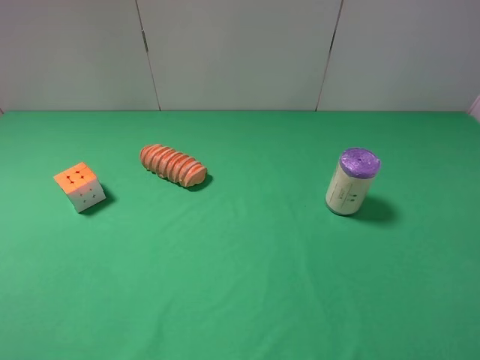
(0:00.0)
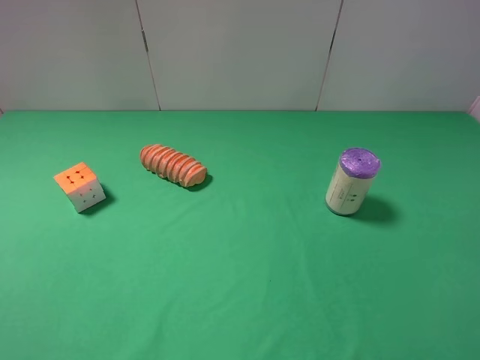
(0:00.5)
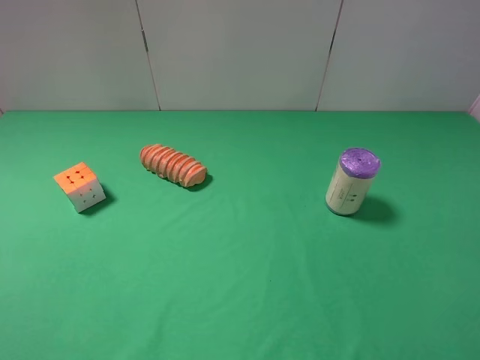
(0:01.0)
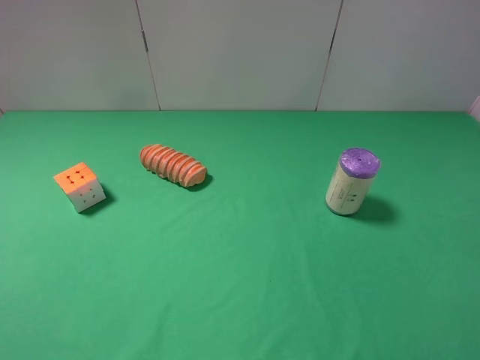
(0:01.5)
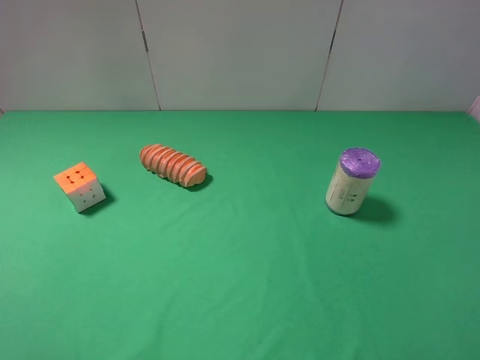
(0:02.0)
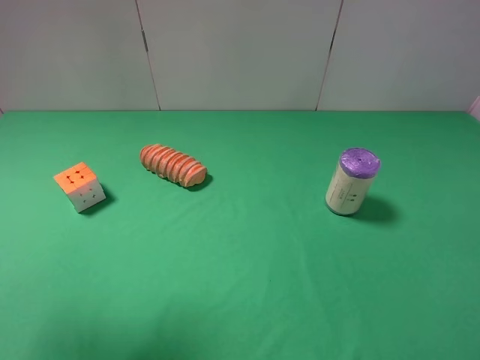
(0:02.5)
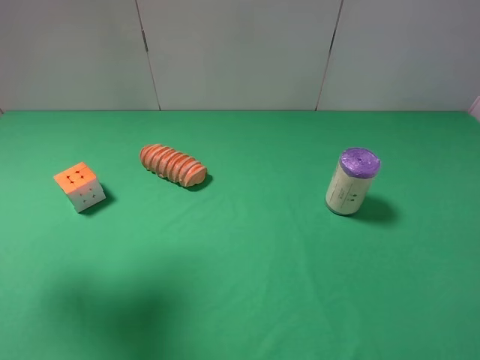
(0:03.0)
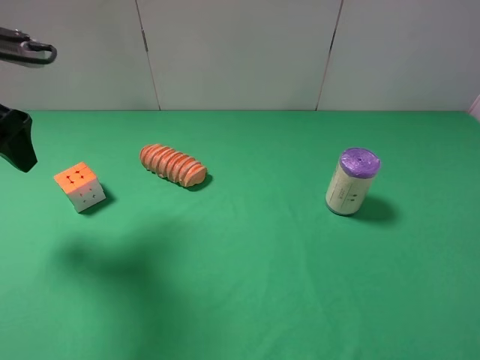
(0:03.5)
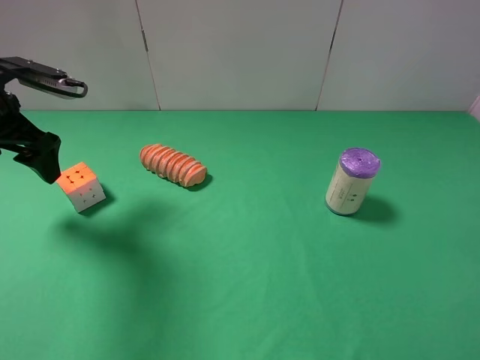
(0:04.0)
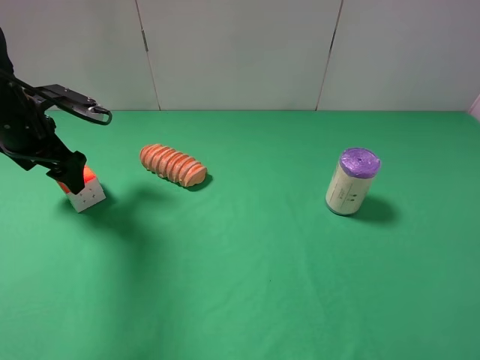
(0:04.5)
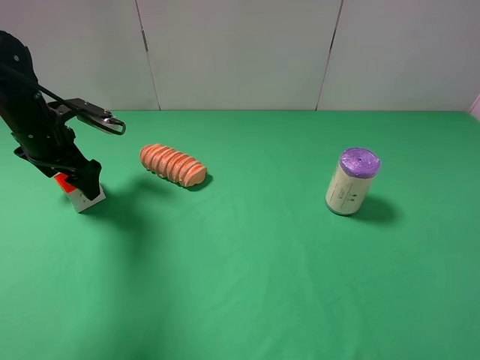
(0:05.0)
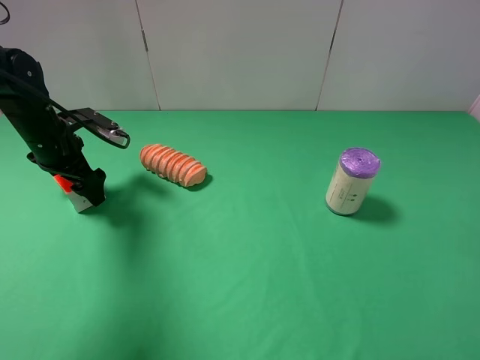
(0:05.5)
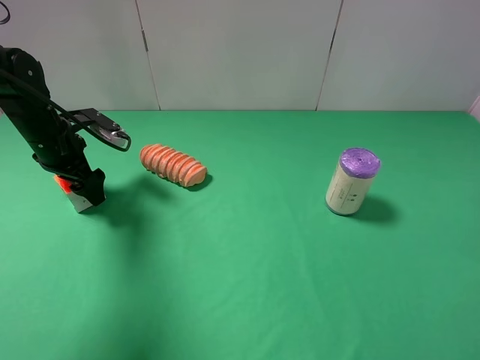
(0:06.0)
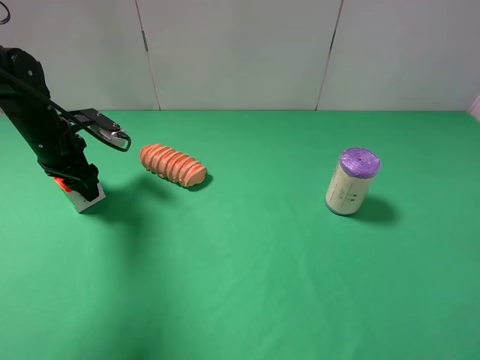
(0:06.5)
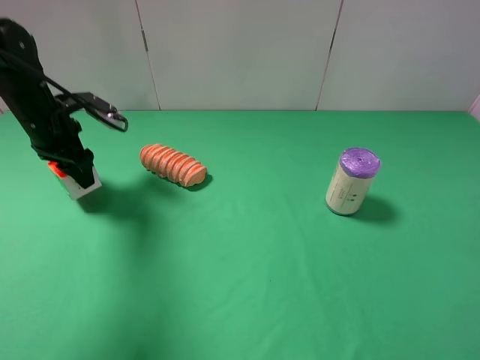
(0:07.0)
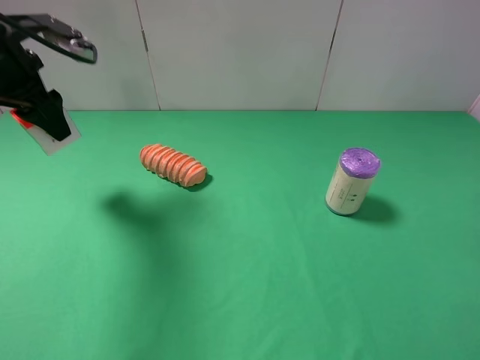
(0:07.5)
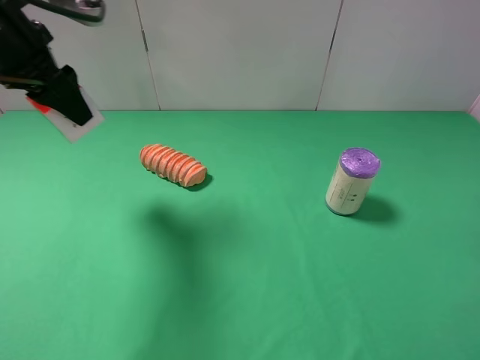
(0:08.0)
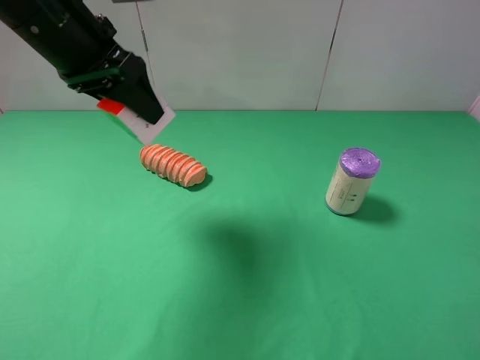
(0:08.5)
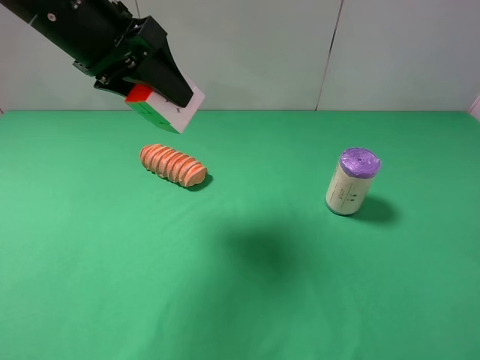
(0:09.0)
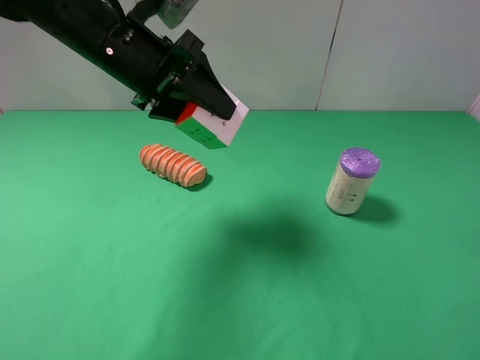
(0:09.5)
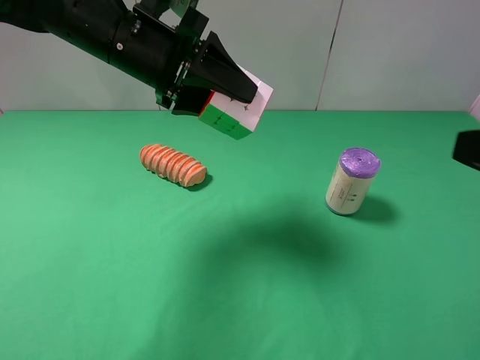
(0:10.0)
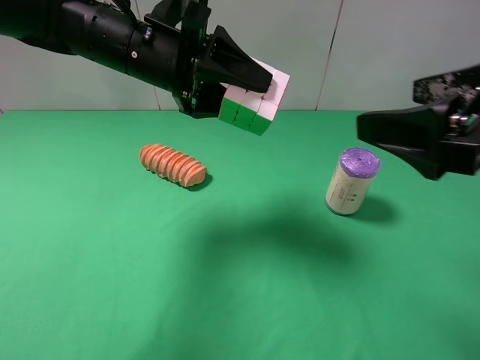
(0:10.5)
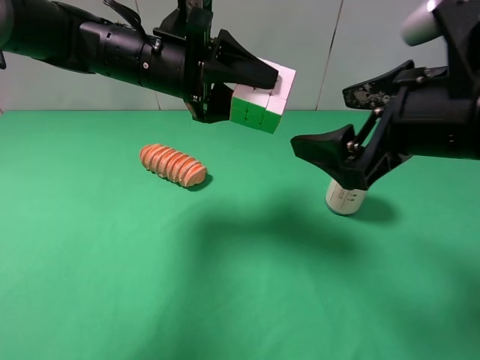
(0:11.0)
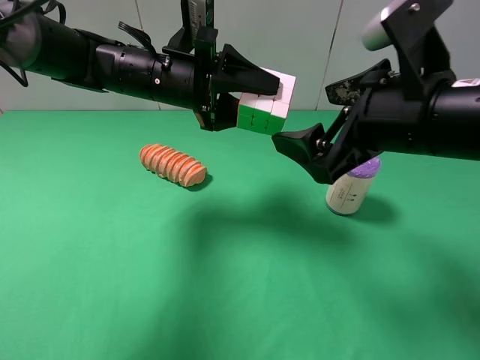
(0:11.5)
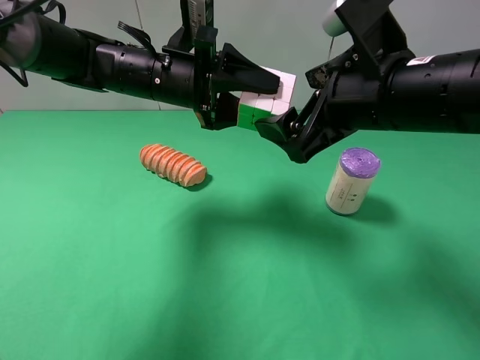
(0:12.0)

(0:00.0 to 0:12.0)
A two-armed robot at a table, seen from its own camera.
Task of the whole recording: use the left gripper to pick up the item and transfer it from the left gripper to the right gripper.
Step, 0:00.0 - 0:06.0: Use the left gripper to grab the Rubik's Cube on the left side of the table.
0:02.0 - 0:04.0: The left gripper heads forward and downward, covering roughly 25 cm.
0:04.0 - 0:06.0: The left gripper goes about 10 cm downward and forward.
0:06.0 - 0:08.0: The left gripper heads upward, covering some 20 cm, and closes up.
0:08.0 - 0:10.0: The right gripper travels forward by roughly 10 cm. Meanwhile the left gripper heads to the right, covering roughly 15 cm.
0:10.0 - 0:12.0: The left gripper goes approximately 5 cm downward. Meanwhile the right gripper goes about 20 cm forward and to the left.

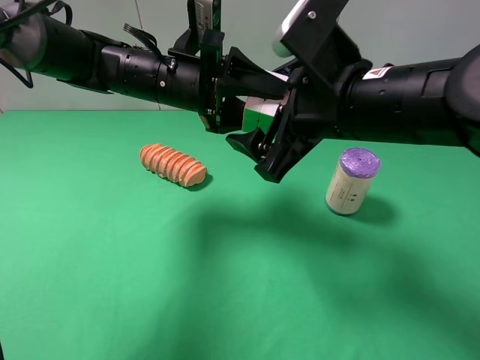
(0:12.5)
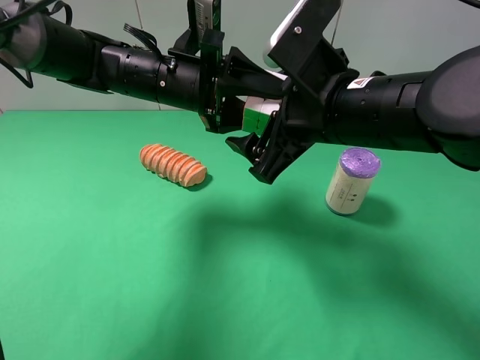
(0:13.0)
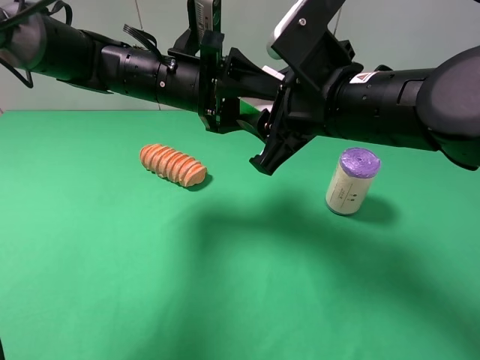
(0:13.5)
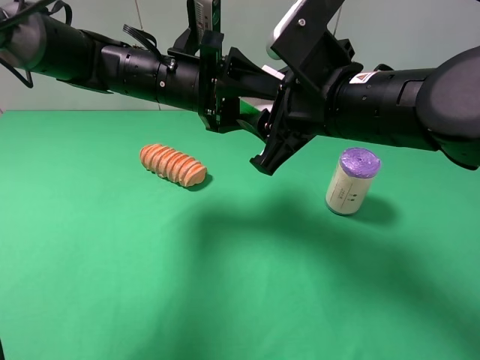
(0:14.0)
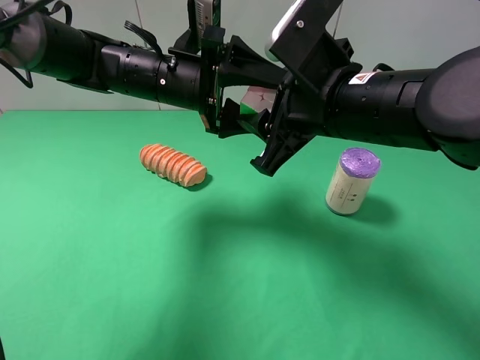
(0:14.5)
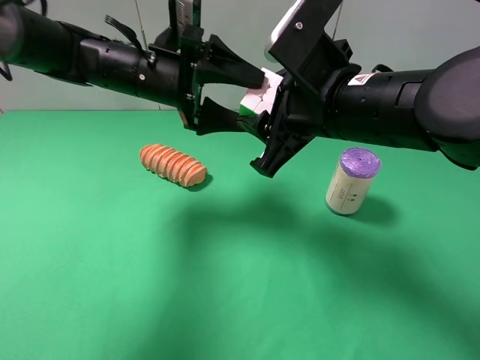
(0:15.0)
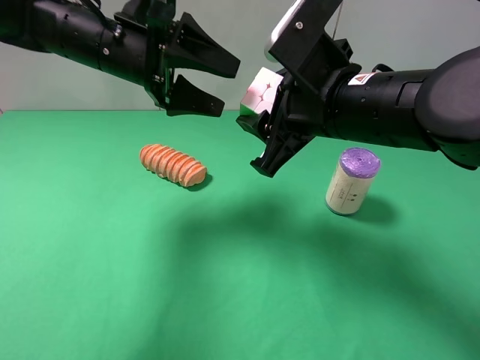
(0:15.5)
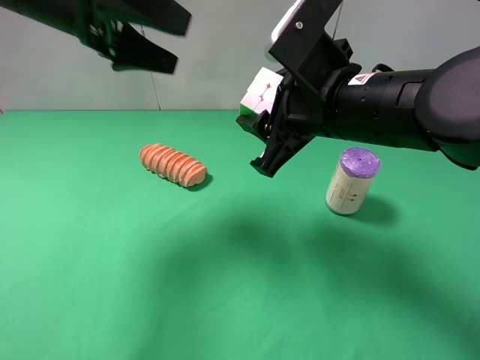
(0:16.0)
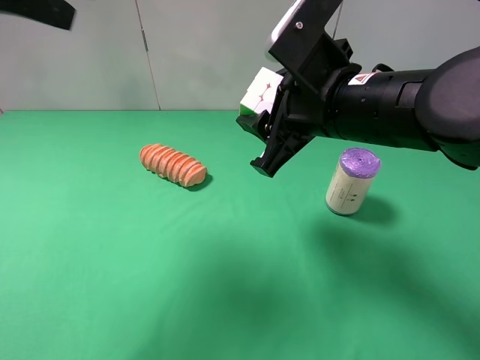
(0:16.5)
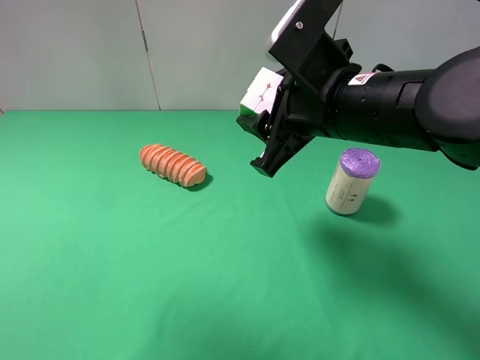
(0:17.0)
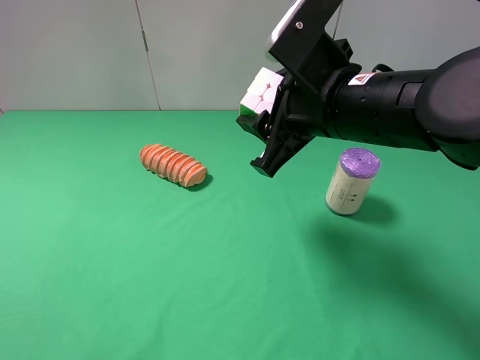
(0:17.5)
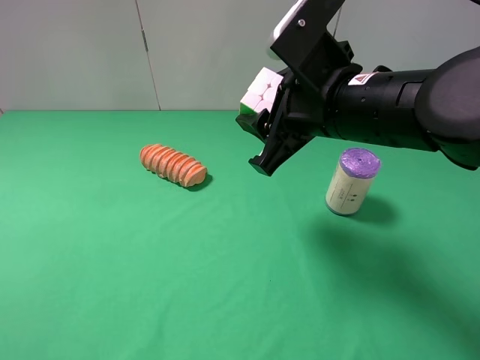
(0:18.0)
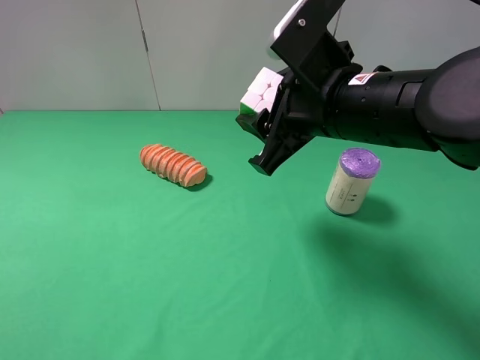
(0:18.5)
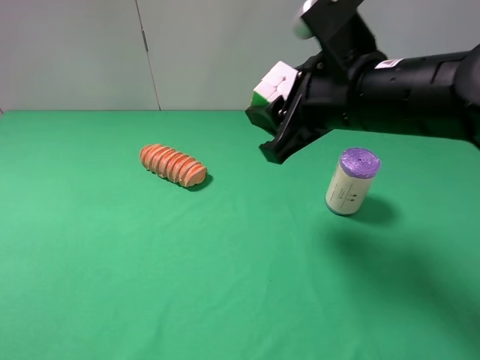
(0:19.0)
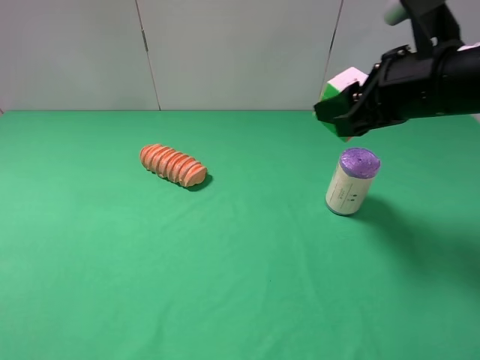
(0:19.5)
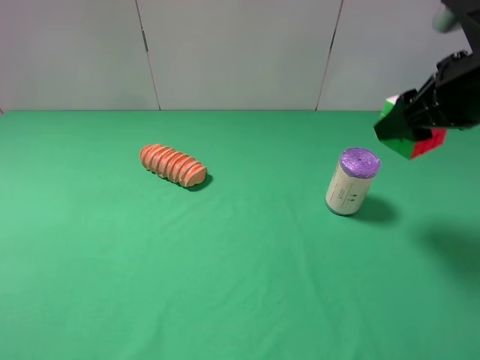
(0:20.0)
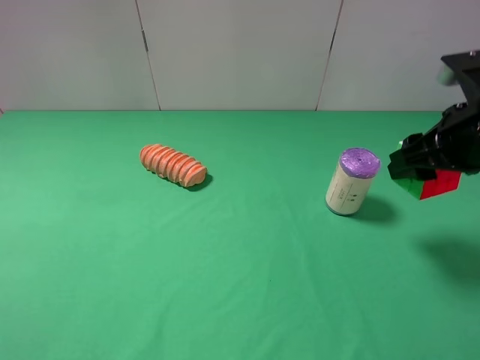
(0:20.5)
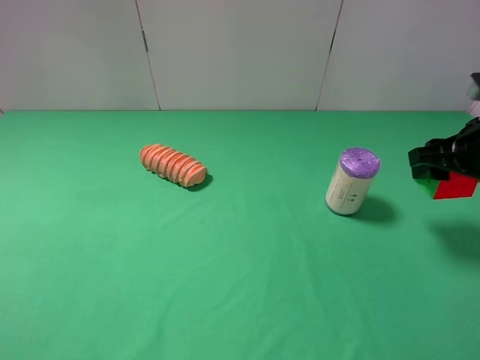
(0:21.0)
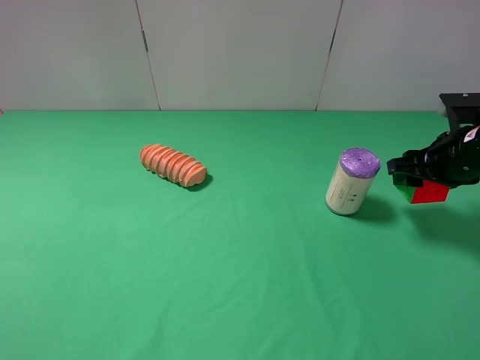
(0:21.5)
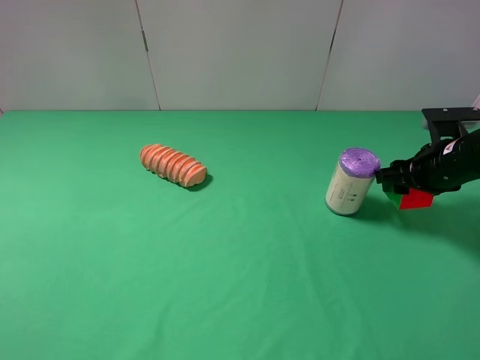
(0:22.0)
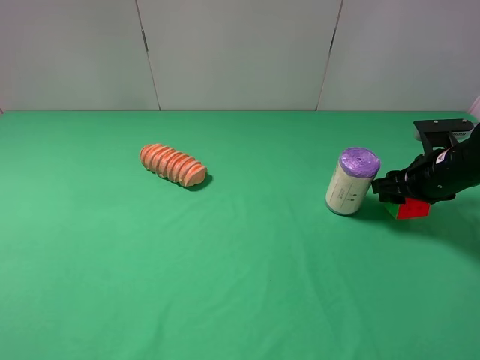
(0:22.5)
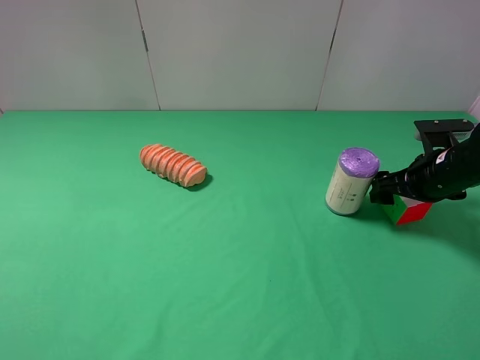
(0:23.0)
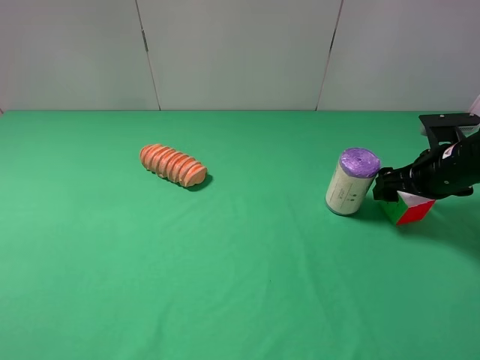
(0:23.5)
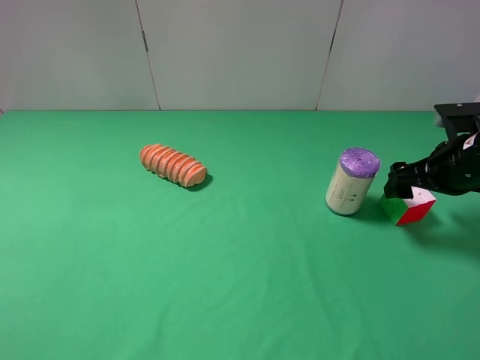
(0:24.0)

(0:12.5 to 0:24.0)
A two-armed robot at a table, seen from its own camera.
Task of the whole recording: use the left gripper to pick up the item and transfer it from the left gripper to the right gripper.
Step, 0:12.5 - 0:14.5: Pass the Rubik's Cube to the right gripper.
Step, 0:15.0 - 0:23.0: The right gripper places Rubik's Cube on the right side of the table.
0:12.5 - 0:14.5: The left gripper opens its fingers, while the right gripper closes.
0:14.5 - 0:16.5: The left gripper moves upward, to the left and backward, some 25 cm, and opens.
0:16.5 - 0:18.5: The left gripper is displaced backward and downward by roughly 25 cm.
0:18.5 - 0:20.0: The right gripper is displaced to the right by about 15 cm.
0:20.0 - 0:22.0: The right gripper heads downward, covering some 15 cm.
0:22.0 - 0:24.0: The right gripper opens its fingers.

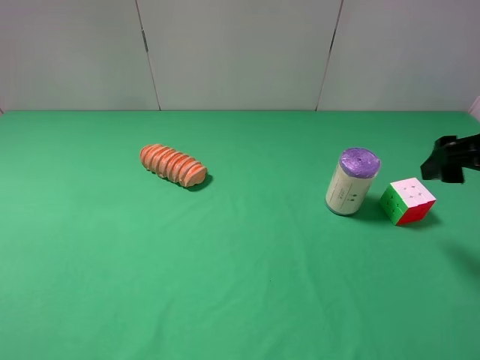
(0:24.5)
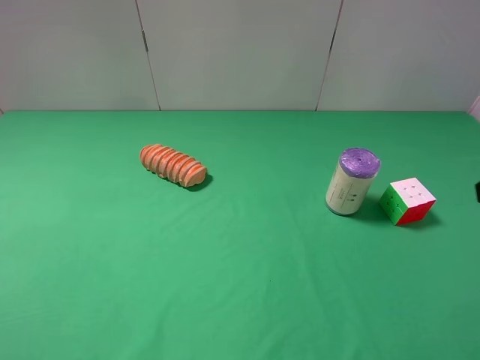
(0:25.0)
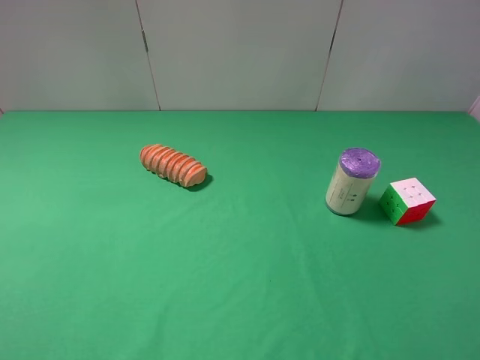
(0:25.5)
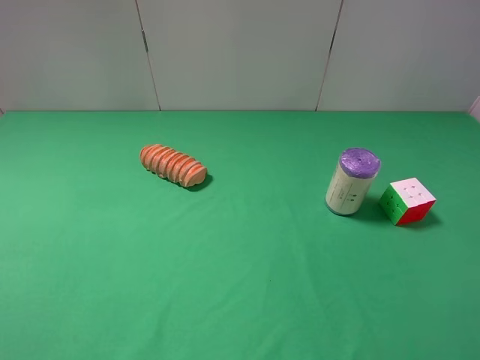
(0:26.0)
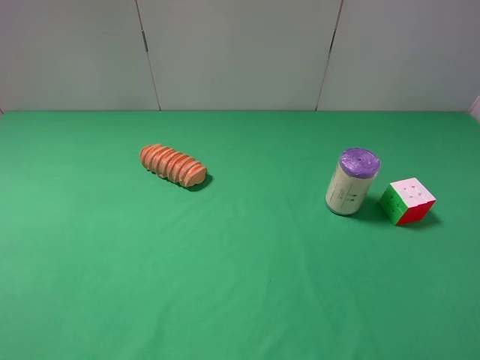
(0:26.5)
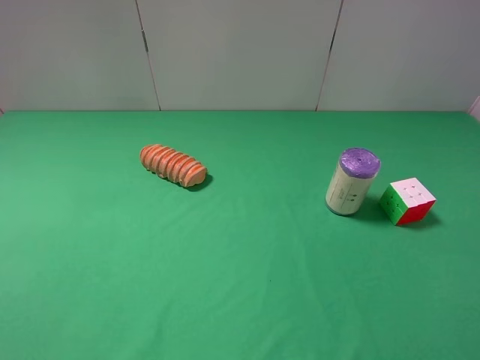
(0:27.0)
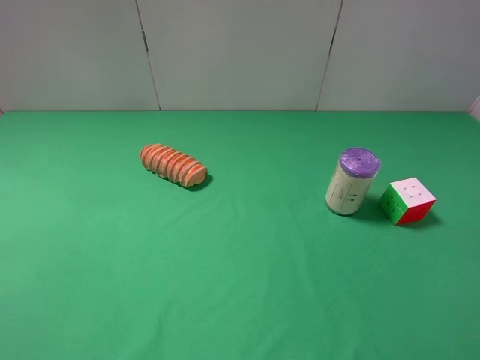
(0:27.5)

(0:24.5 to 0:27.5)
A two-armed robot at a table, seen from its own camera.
Task of the whole recording: use the left gripper to pick up the item and transfer it from the left gripper to the right gripper.
0:24.5 - 0:26.0: The right gripper goes approximately 20 cm backward.
